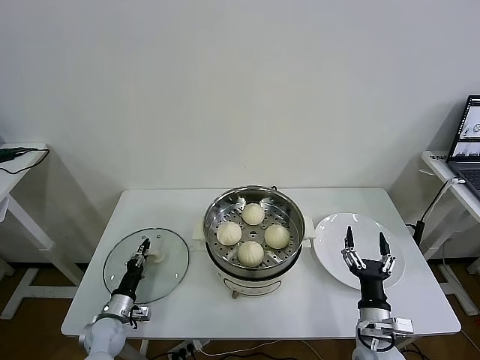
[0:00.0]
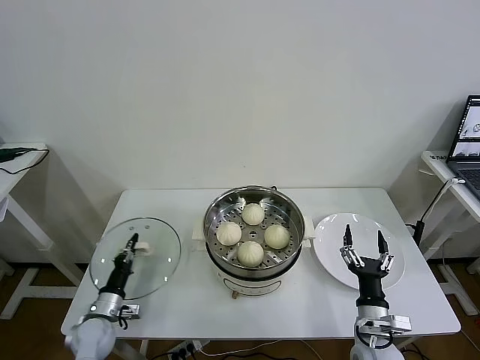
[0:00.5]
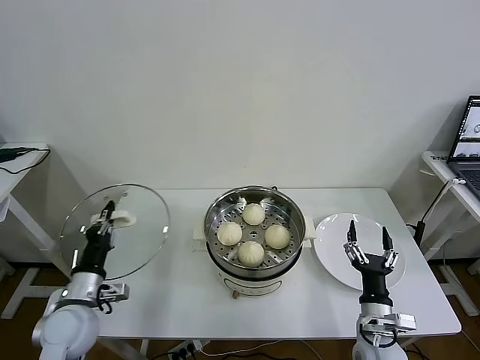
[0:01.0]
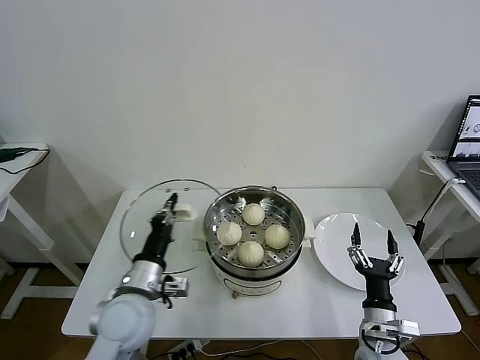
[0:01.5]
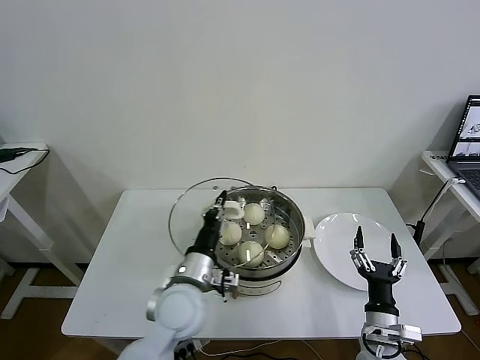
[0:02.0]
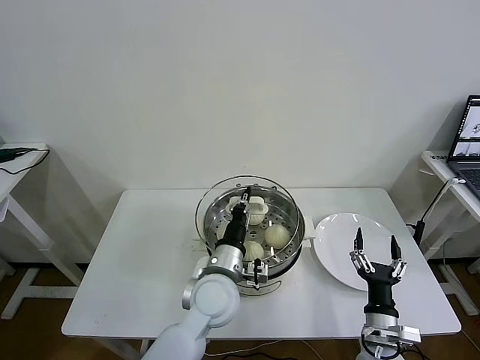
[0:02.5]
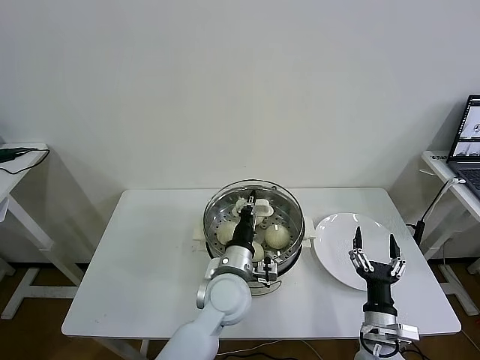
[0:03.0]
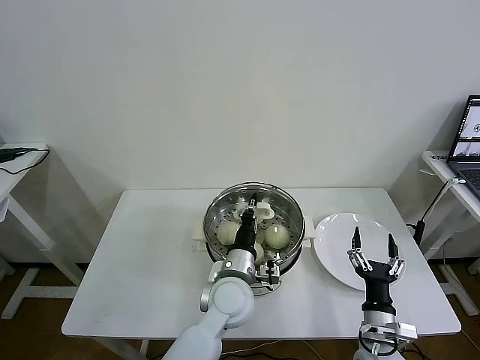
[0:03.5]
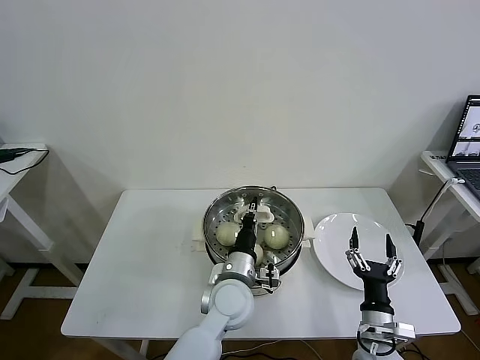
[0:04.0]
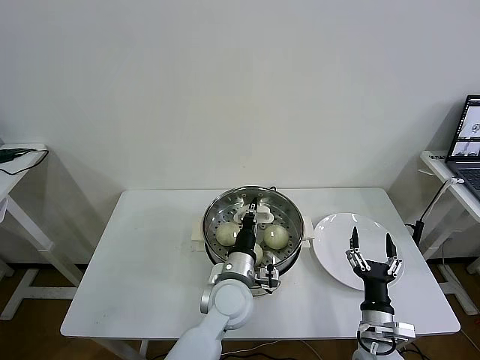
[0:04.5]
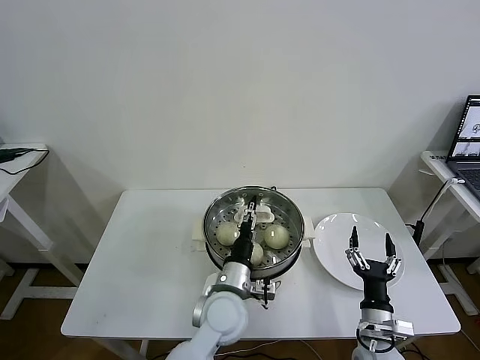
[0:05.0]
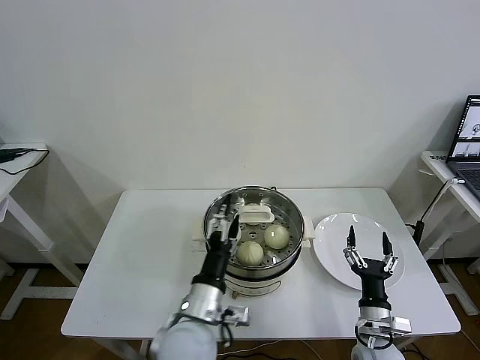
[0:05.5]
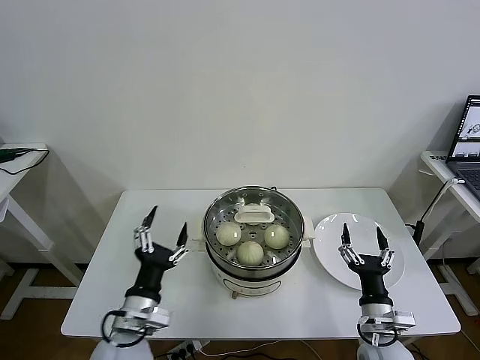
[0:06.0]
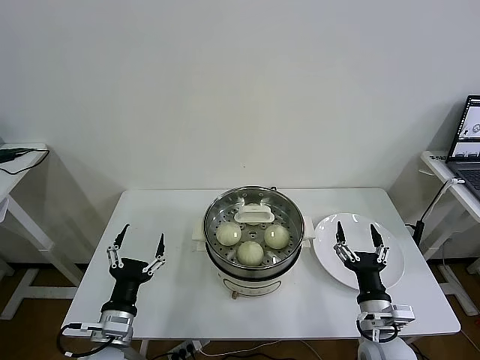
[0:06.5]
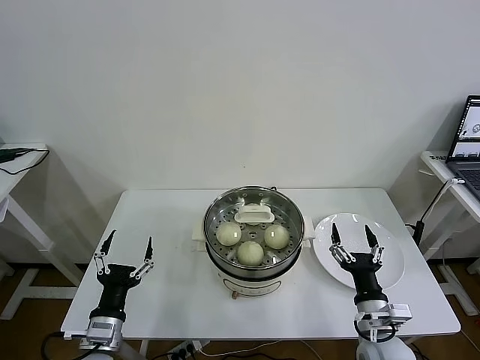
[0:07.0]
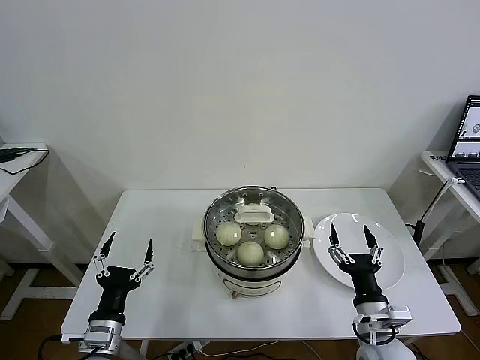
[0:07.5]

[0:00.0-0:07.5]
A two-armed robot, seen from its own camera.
Task of the whole recording: take steamed baozi put them in steamer then cover it.
Step, 0:00.5 to 0:05.0: Place the pot lid on the steamer with left gripper.
0:00.0 to 0:02.0: The left gripper goes some 35 cm upward and to the right.
0:02.0 to 0:04.0: The left gripper is displaced to the right by approximately 10 cm.
0:04.0 to 0:05.5: The left gripper shifts approximately 10 cm backward and to the left, and opens up.
0:05.5 to 0:07.5: The left gripper travels to the left by some 20 cm. Meanwhile the right gripper travels upward by some 5 cm.
